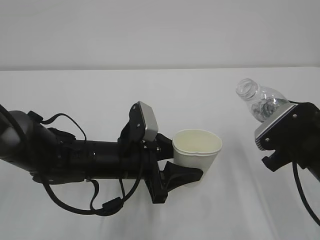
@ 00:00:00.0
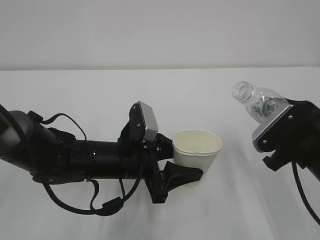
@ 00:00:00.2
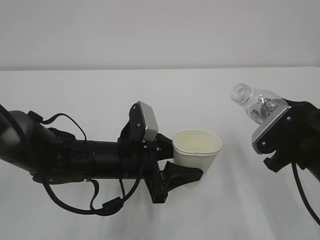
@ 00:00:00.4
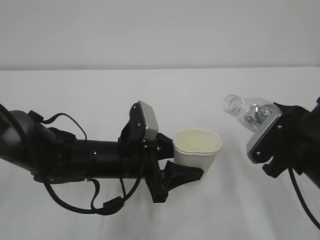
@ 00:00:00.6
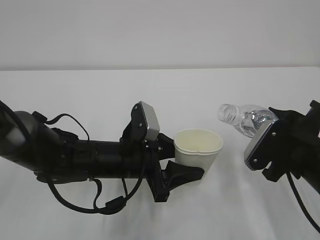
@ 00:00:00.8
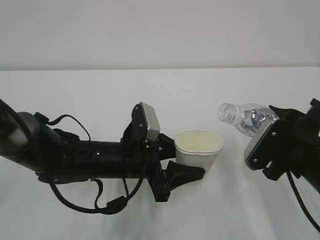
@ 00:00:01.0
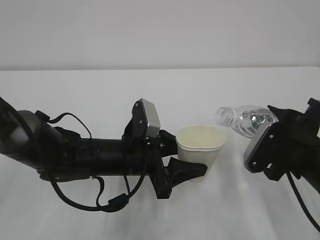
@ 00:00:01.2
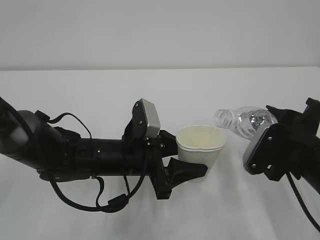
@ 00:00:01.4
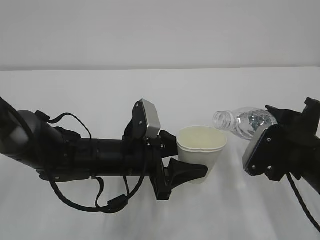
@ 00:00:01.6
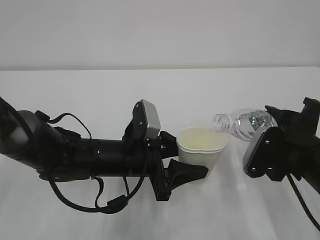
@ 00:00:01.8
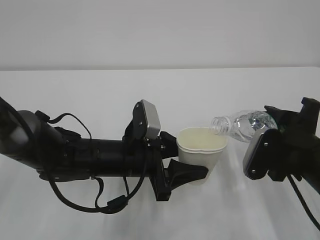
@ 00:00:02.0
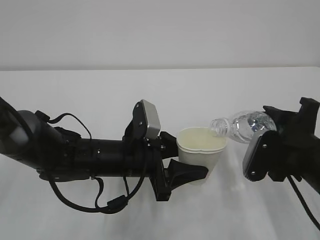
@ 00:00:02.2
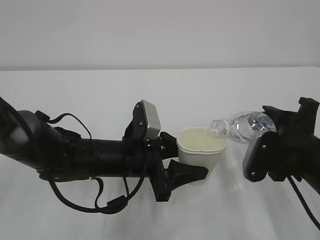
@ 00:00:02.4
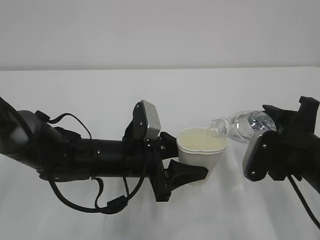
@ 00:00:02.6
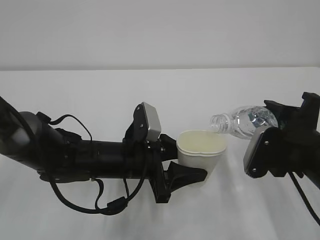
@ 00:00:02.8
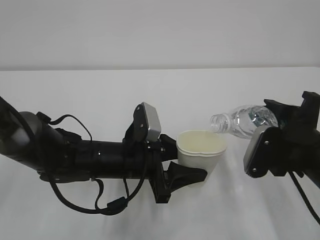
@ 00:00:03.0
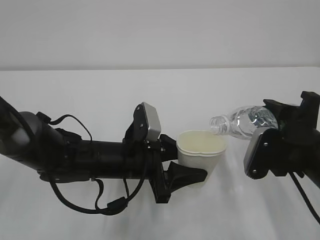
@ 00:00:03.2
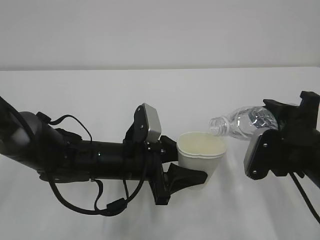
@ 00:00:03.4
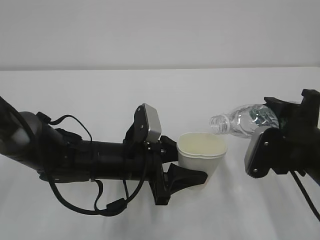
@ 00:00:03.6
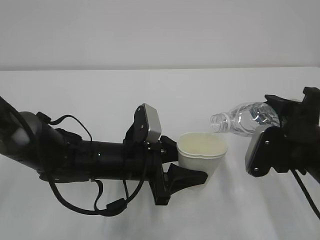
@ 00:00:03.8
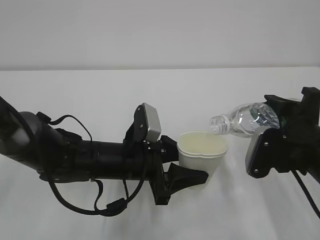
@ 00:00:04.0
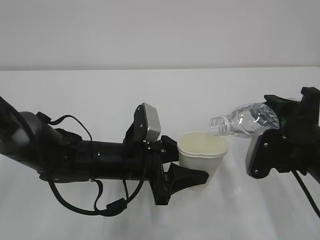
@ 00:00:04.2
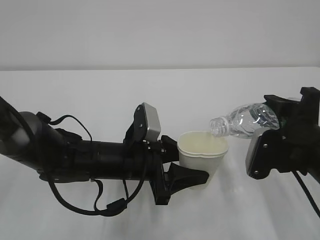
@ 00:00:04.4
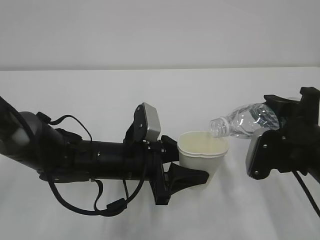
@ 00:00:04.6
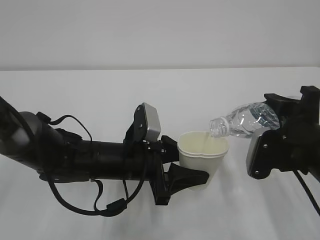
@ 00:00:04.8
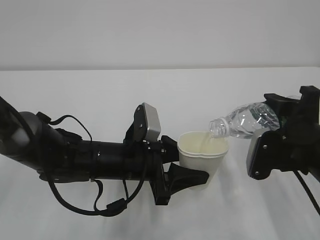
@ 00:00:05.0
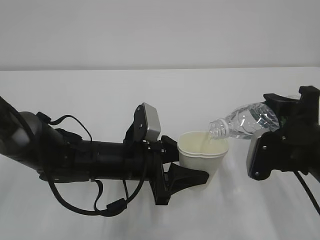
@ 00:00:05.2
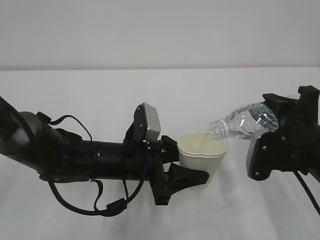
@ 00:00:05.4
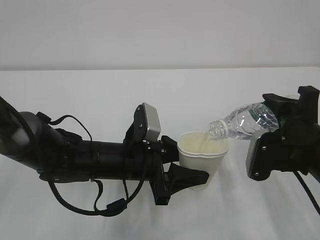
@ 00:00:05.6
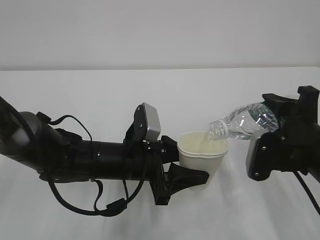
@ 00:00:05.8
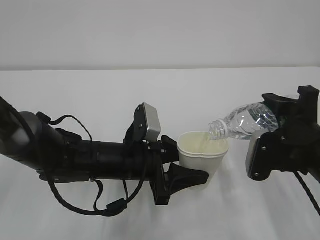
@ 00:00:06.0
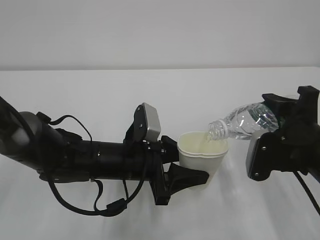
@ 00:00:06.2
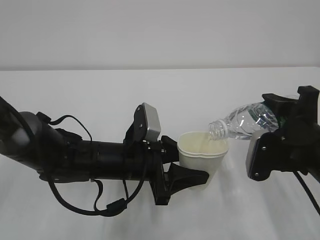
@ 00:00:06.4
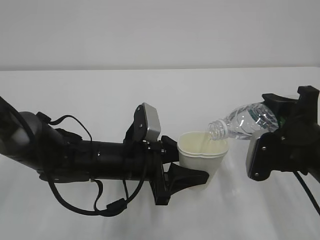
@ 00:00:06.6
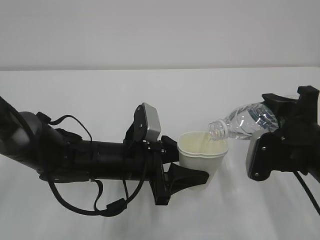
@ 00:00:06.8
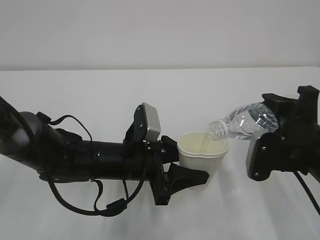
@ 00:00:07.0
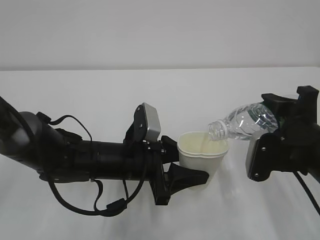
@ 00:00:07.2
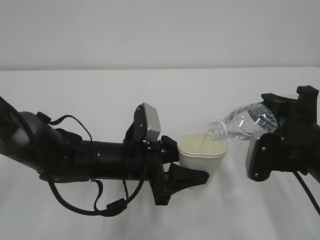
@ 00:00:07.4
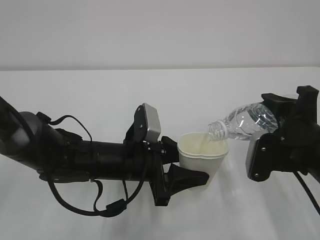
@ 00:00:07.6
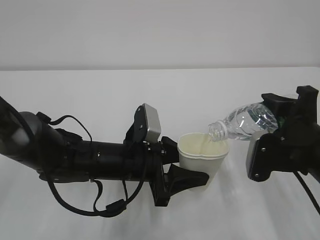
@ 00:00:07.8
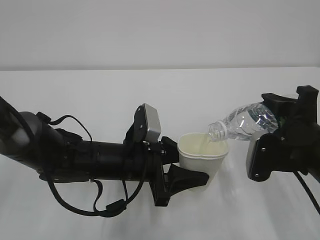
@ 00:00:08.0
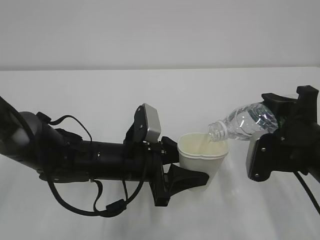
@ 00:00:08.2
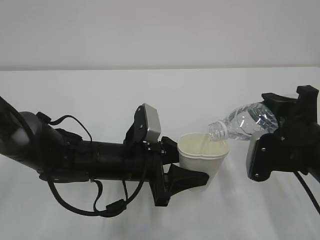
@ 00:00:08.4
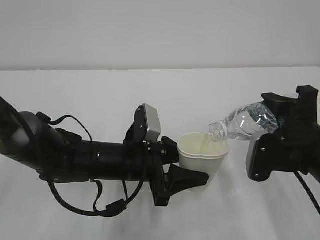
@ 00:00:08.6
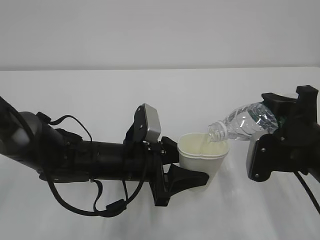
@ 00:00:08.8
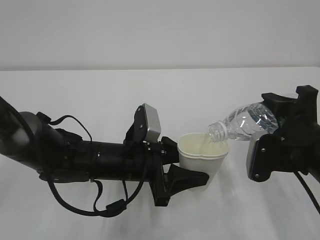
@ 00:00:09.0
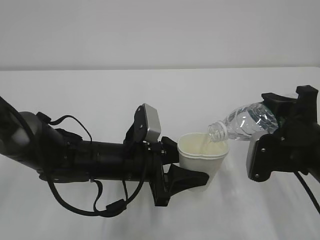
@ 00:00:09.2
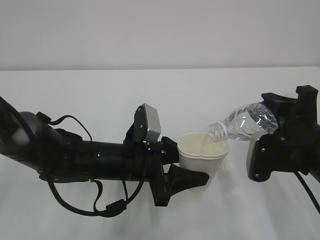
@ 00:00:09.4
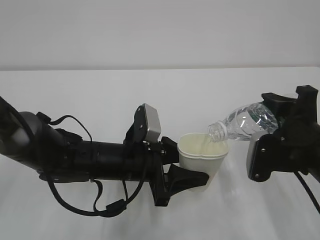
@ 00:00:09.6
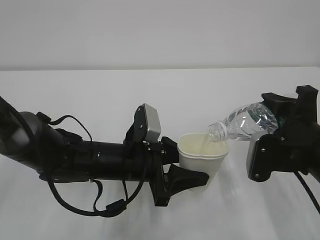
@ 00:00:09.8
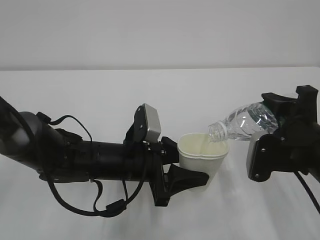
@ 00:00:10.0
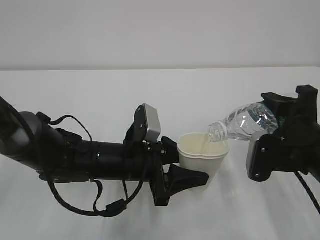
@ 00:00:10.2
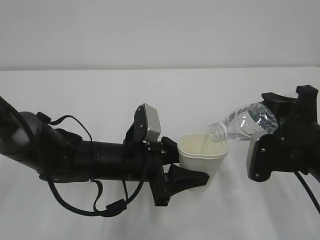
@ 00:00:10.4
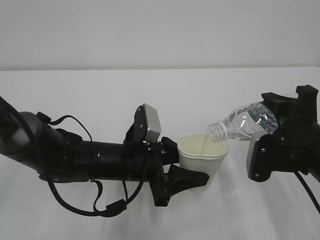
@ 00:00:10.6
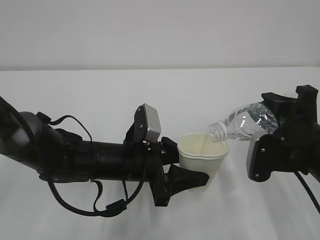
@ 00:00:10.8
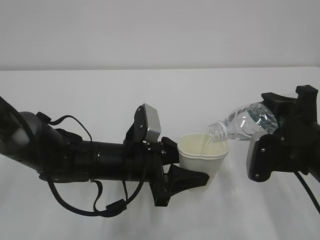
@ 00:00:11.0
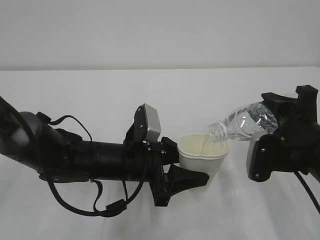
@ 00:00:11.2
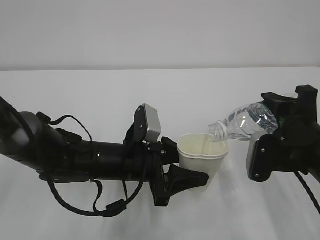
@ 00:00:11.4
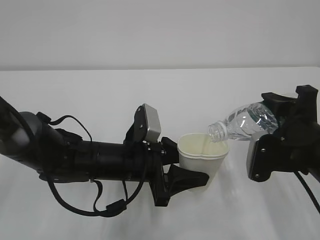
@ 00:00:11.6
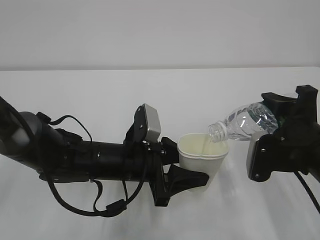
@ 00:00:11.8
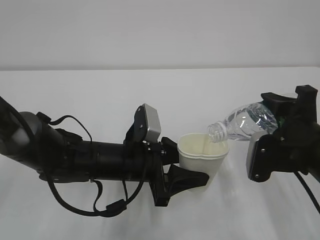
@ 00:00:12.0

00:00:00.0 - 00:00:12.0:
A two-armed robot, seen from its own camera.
00:00:01.6 - 00:00:04.4: The grippers stay close to where they were, moving slightly.
00:00:04.4 - 00:00:07.6: The two grippers keep their place.
00:00:07.6 - 00:00:12.0: Both grippers stay about where they are.

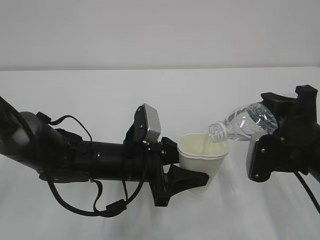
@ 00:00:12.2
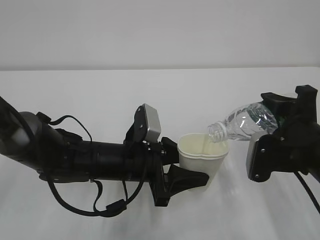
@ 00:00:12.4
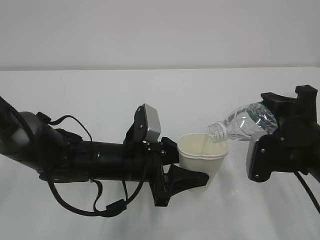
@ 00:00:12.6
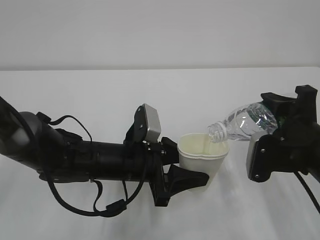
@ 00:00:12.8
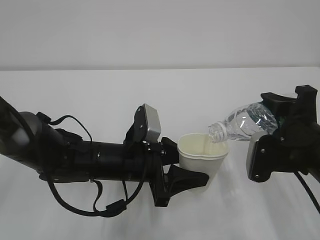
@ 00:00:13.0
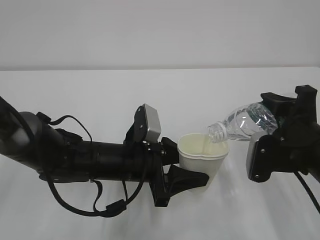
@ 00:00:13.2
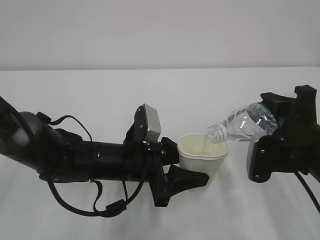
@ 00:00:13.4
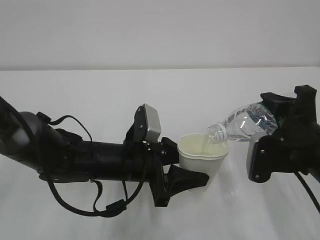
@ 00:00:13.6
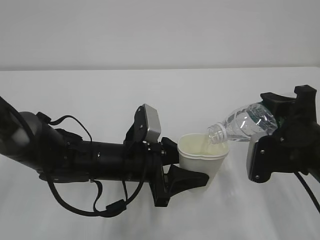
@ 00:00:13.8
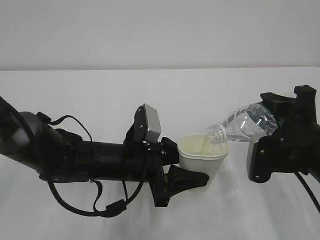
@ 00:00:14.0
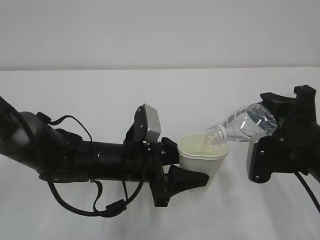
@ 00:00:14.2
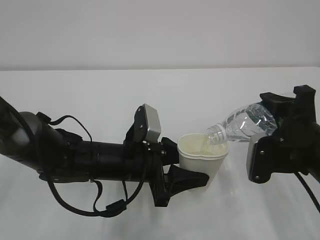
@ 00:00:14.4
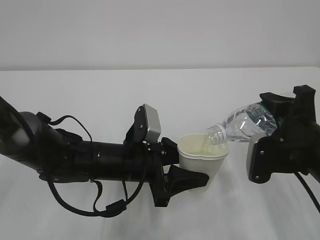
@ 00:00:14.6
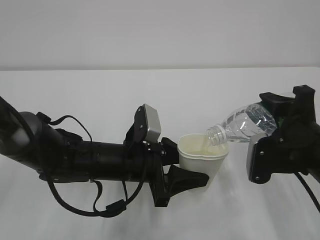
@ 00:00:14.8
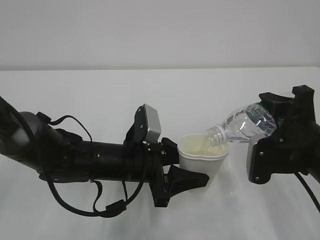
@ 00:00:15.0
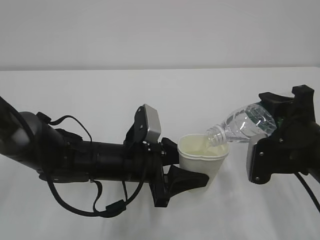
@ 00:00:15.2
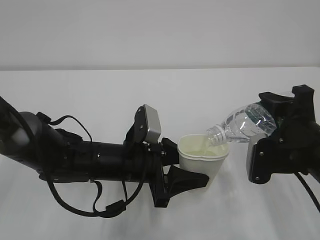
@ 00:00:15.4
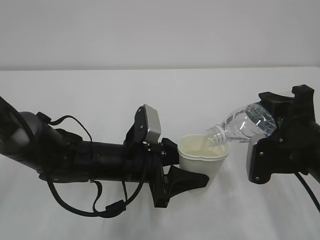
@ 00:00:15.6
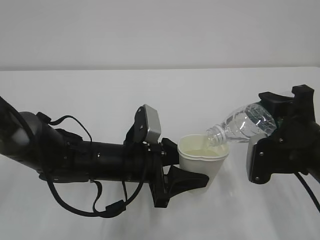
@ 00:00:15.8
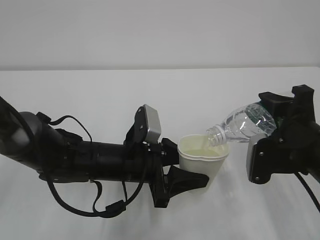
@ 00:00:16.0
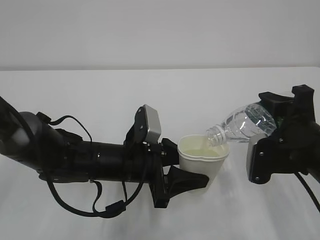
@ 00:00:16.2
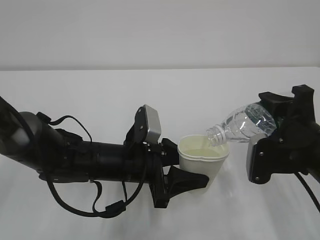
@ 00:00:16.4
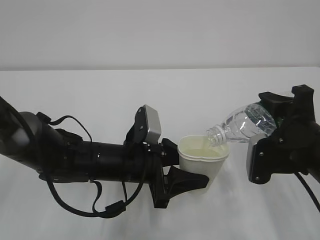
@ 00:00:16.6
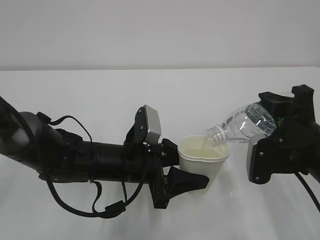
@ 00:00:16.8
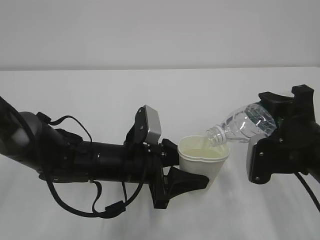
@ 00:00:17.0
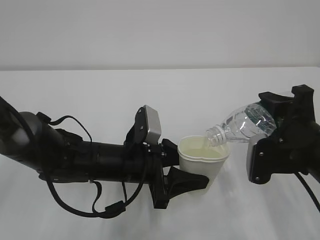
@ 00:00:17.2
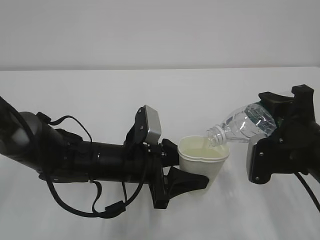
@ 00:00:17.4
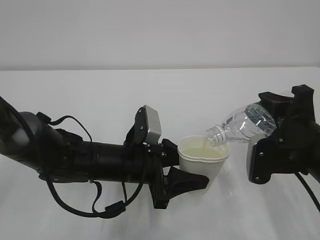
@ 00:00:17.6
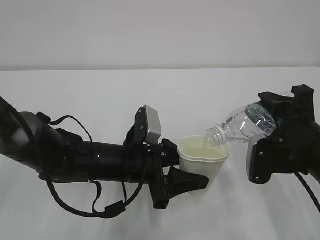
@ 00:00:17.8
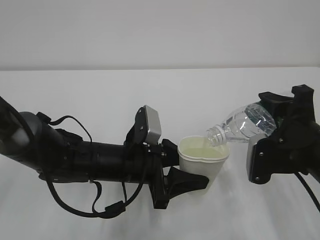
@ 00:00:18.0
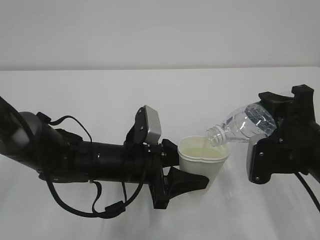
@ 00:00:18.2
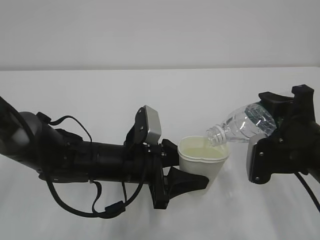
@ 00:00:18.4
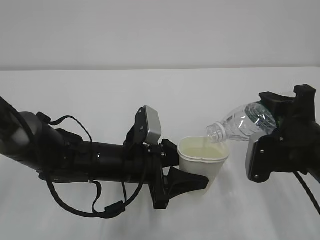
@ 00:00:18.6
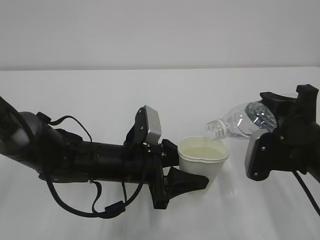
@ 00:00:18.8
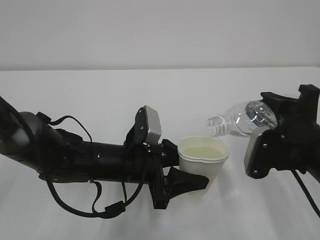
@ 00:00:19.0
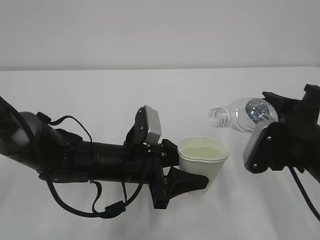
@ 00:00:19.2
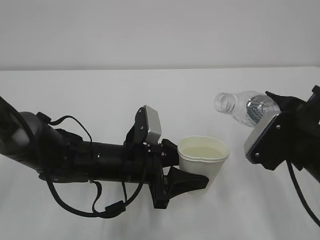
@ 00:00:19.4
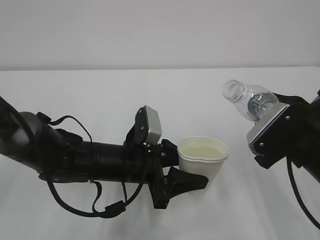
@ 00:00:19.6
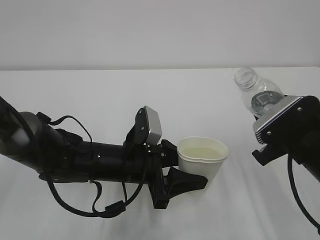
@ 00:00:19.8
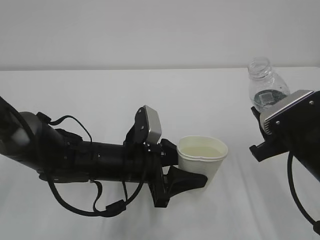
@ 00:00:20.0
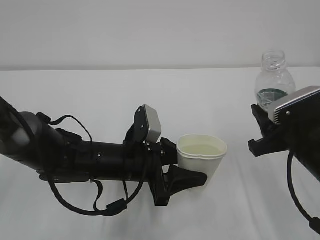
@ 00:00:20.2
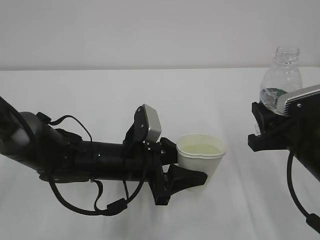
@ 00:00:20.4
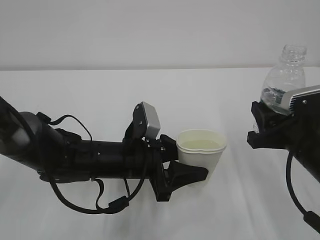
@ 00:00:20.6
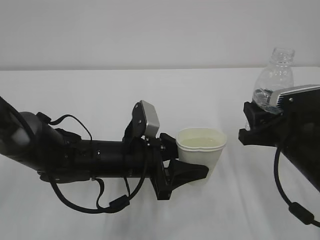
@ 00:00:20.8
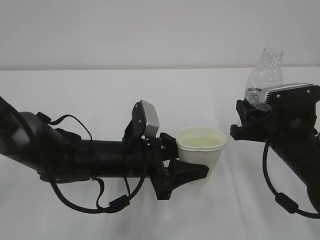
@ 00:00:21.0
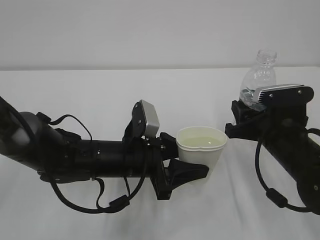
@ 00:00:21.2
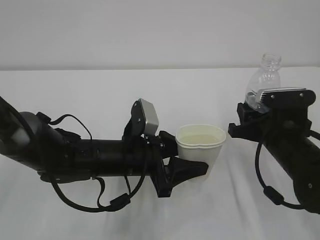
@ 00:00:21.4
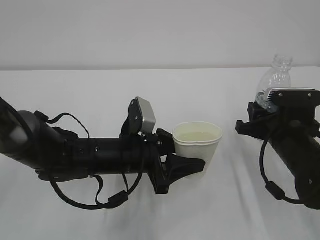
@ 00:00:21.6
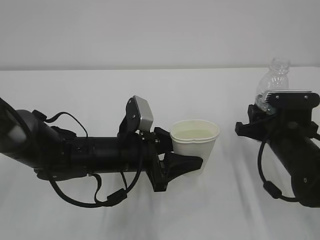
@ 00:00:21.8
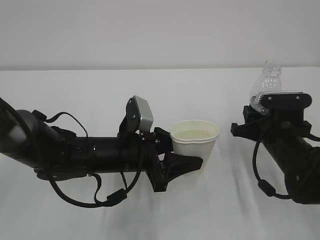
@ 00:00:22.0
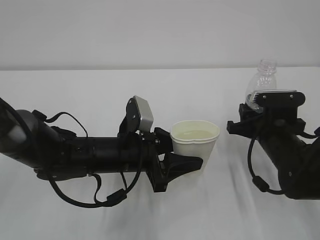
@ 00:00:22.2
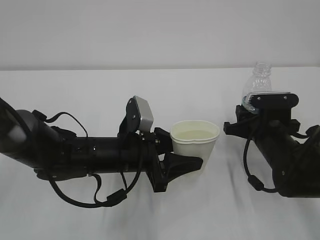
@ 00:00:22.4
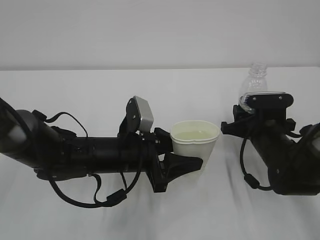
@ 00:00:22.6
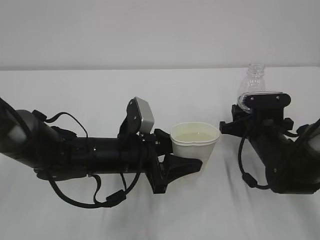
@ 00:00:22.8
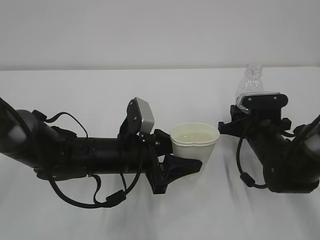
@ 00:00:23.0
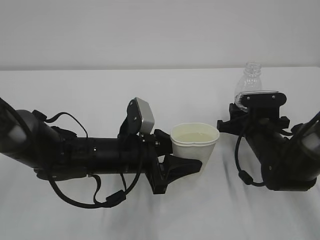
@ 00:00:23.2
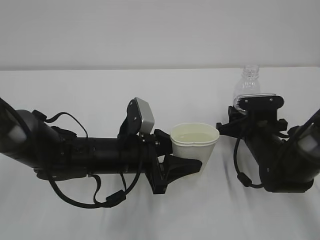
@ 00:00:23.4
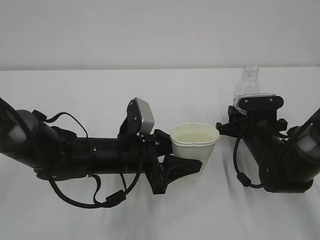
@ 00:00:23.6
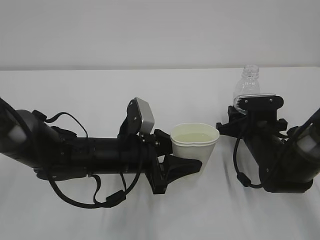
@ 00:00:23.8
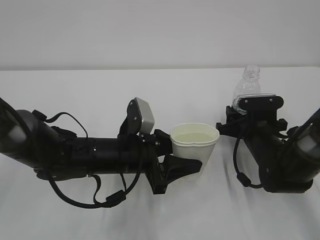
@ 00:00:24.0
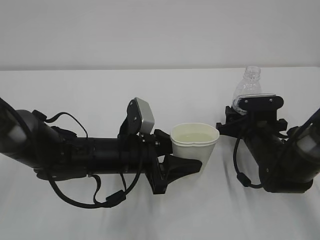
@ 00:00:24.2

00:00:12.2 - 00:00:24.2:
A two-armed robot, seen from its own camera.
00:00:12.2 - 00:00:18.2: Both grippers stay put.
00:00:19.8 - 00:00:21.2: The right gripper shifts by about 5 cm.
00:00:21.2 - 00:00:22.6: The right gripper is displaced forward by some 5 cm.
00:00:22.6 - 00:00:24.2: The right gripper opens.
